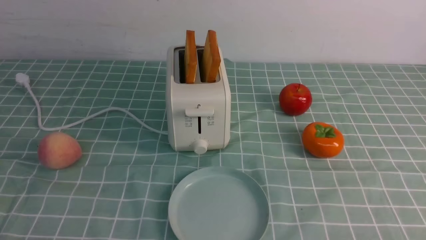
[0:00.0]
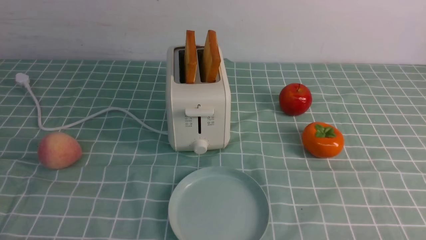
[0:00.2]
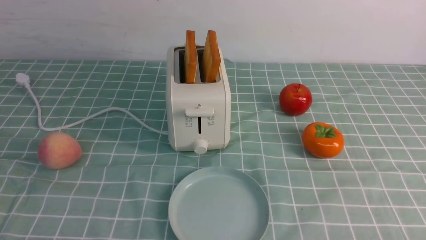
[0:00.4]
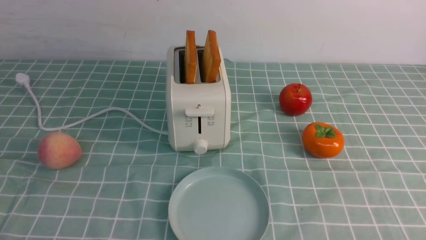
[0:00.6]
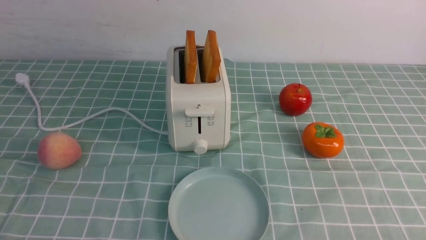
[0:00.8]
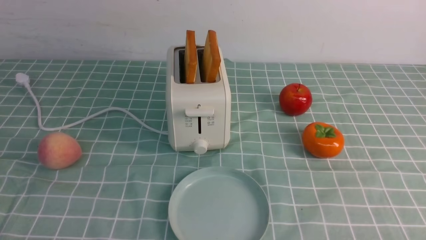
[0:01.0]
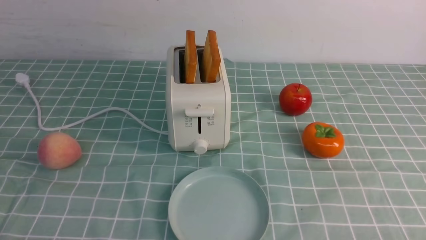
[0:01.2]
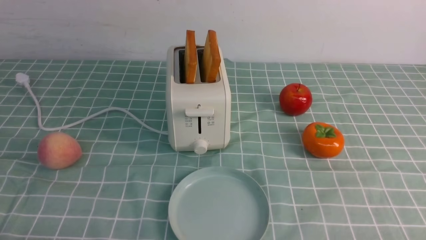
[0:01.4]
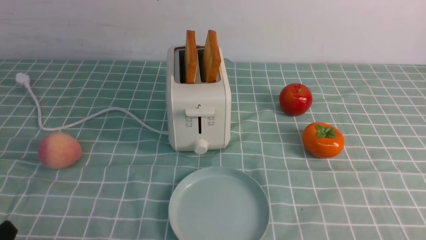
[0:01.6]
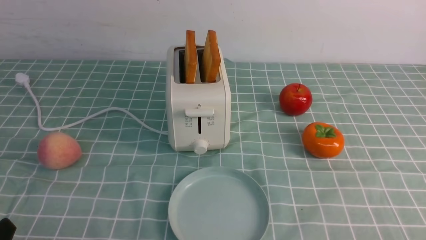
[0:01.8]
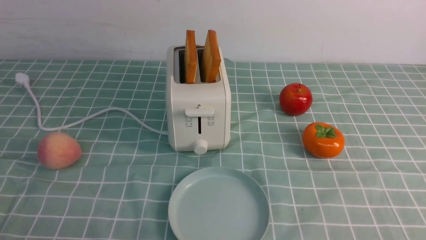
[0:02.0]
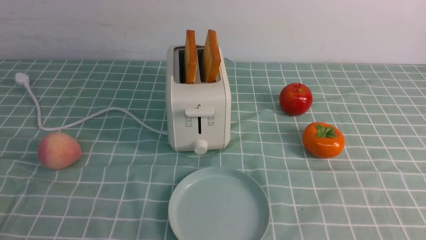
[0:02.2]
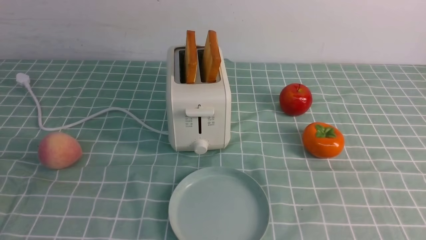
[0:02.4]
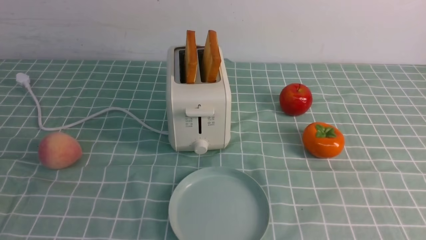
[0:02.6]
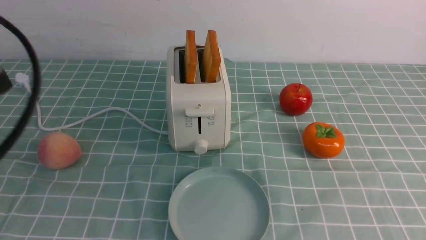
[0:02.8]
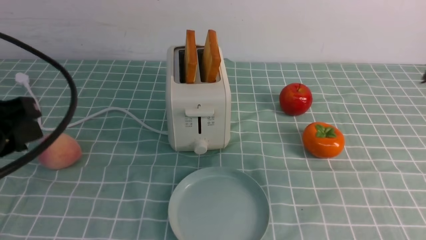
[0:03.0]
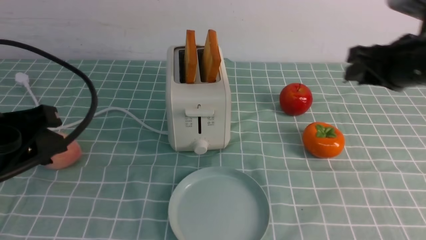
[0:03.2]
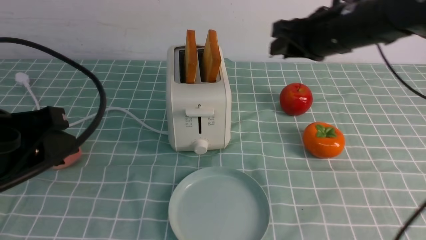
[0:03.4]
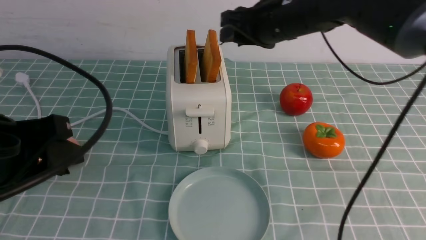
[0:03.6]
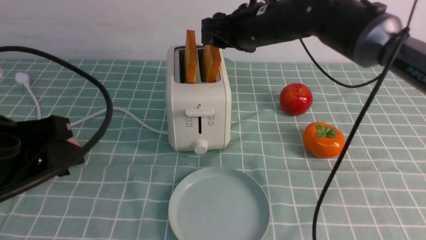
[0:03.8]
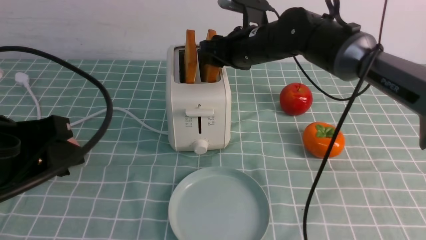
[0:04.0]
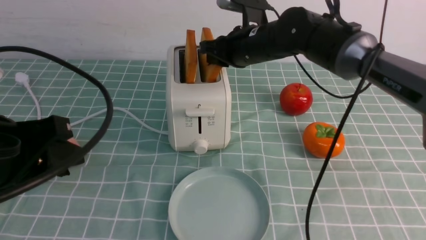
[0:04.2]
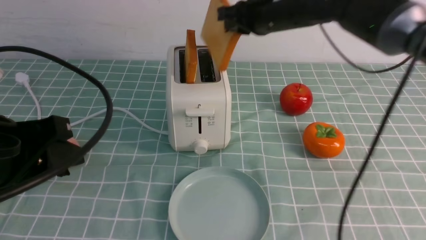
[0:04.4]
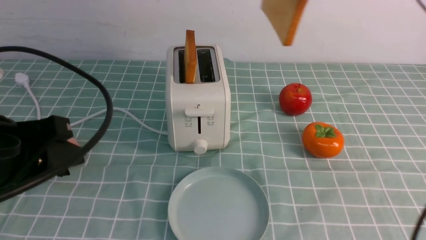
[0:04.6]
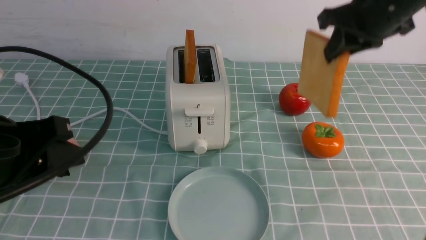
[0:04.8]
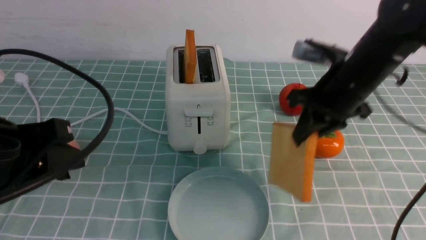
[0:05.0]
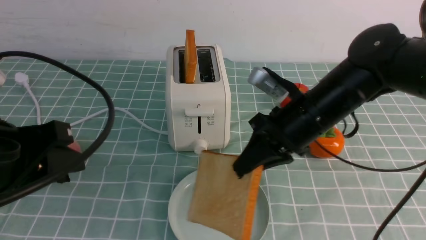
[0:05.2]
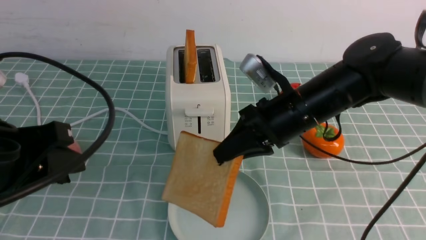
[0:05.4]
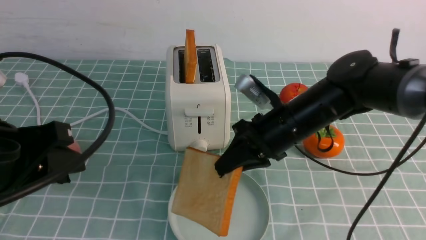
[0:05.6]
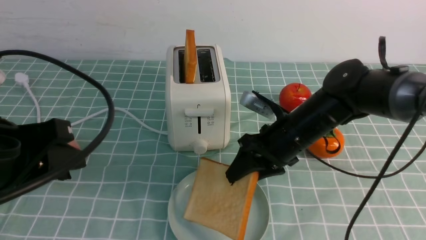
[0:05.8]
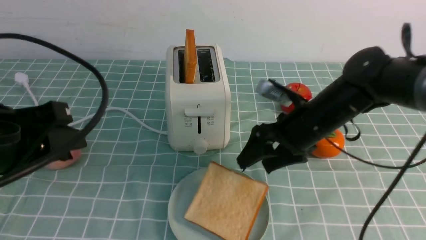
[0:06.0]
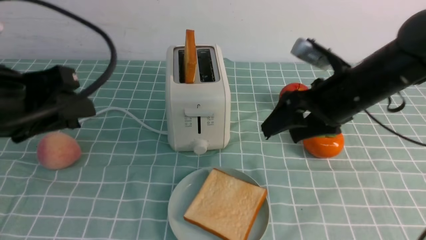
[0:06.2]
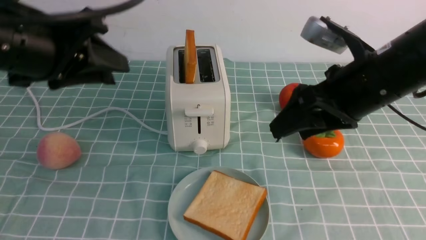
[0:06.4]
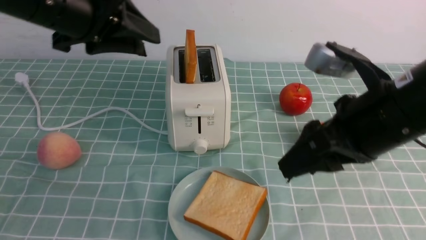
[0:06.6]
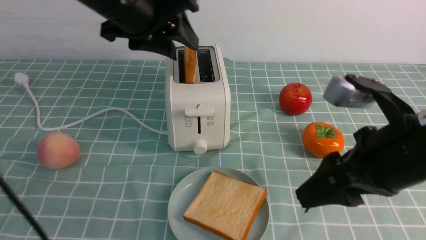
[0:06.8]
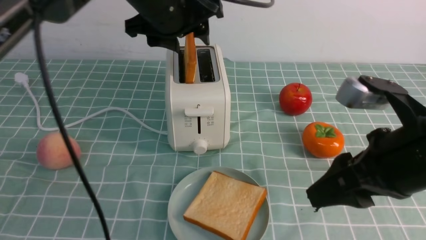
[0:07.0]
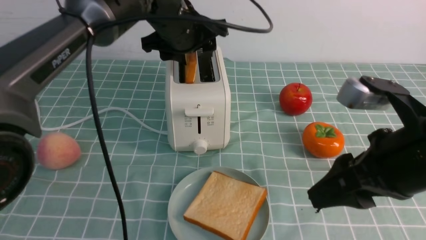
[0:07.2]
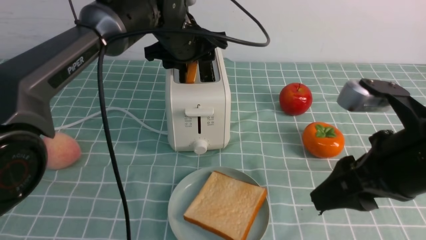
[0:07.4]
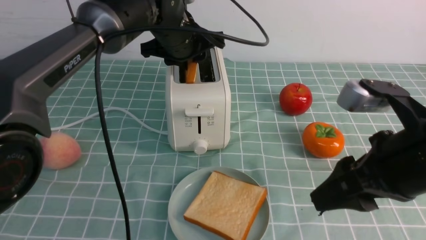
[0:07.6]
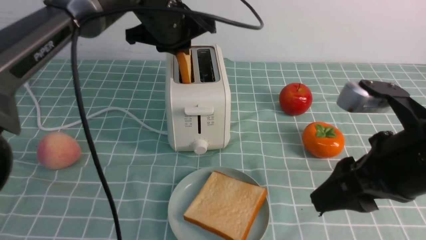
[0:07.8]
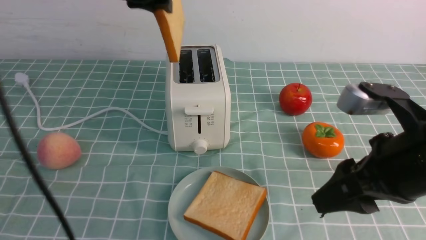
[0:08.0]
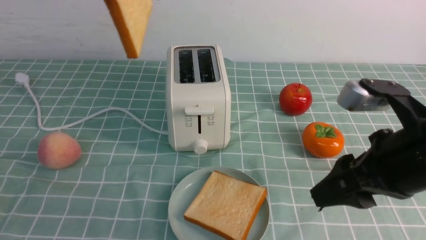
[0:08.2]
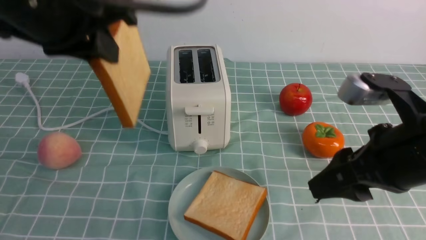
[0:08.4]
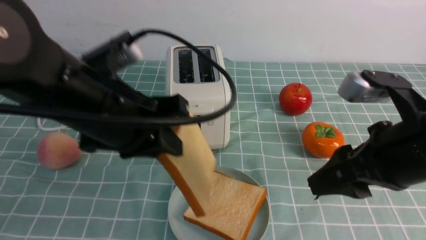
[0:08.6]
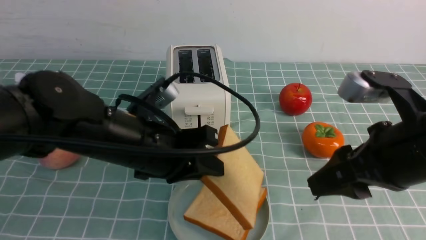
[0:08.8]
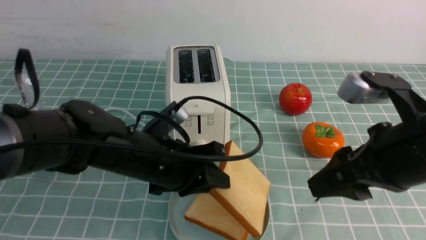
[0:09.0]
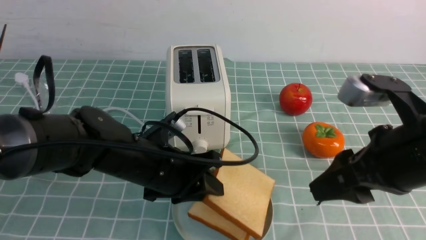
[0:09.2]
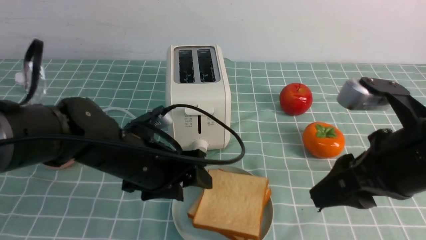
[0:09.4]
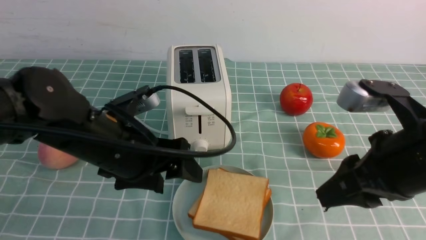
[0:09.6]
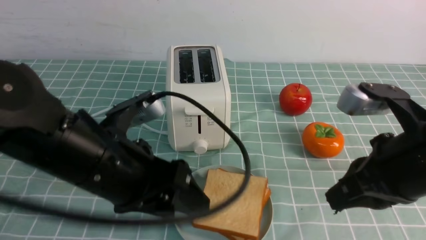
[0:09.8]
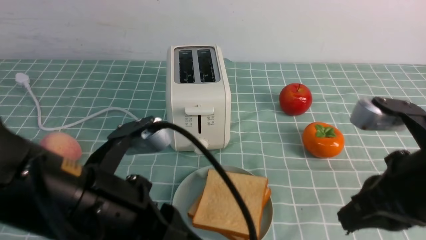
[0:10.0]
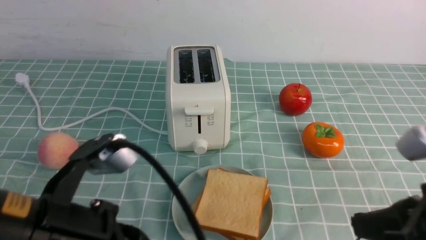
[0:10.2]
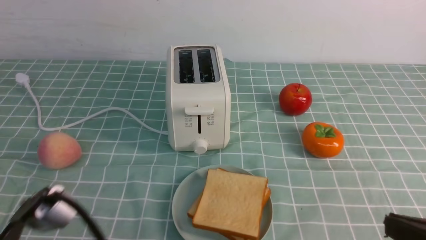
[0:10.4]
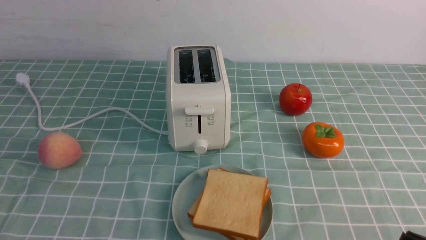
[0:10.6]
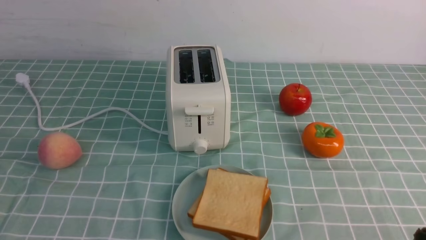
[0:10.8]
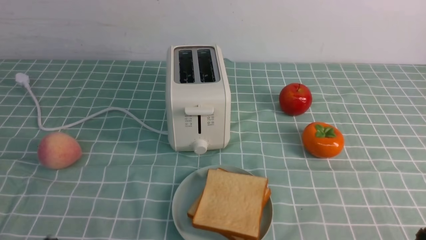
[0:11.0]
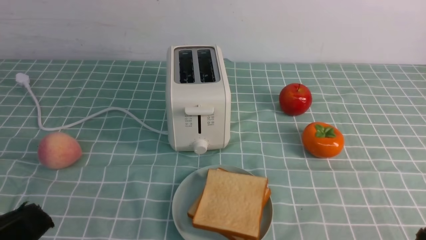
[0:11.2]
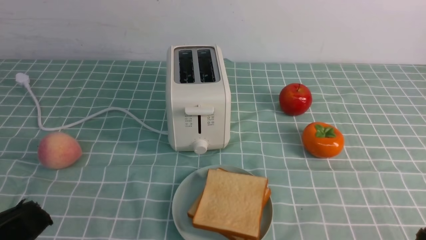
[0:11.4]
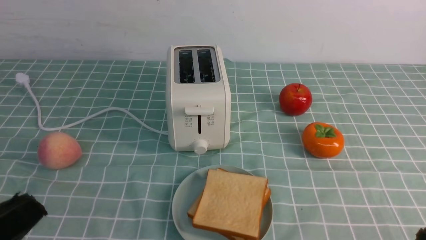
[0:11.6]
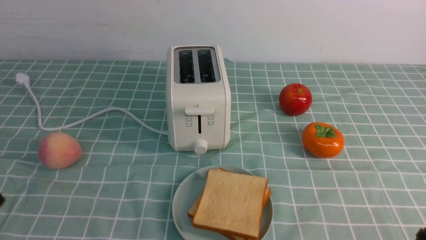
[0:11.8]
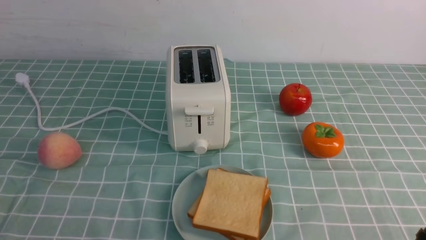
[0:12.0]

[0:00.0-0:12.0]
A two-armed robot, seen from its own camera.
Task of the whole recording: take toasted bread from bread machine on blue coffee table place on plate.
Step, 0:00.0 to 0:04.4: use the right arm to take out a slice of bread.
Step, 0:04.6 to 0:06.0: use the right arm to put a slice of bread into the plate.
Step, 0:06.2 to 0:08.0: use the left arm to take out a slice of bread.
Step, 0:08.2 to 0:09.4: use the left arm to put a slice of bread into the empty plate.
0:01.6 to 0:03.0: The right gripper travels forward and upward by about 30 cm. Meanwhile the left gripper goes some 20 cm upward and forward.
0:03.0 to 0:04.4: The right gripper heads forward and to the left, covering roughly 25 cm.
0:04.4 to 0:06.0: The right gripper goes approximately 15 cm downward and backward, and opens up.
0:06.0 to 0:07.6: The left gripper heads forward and to the right, covering some 30 cm, and opens, then closes again. The right gripper moves backward and upward, roughly 15 cm.
0:07.6 to 0:09.0: The left gripper heads backward and downward, covering some 20 cm.
0:09.0 to 0:10.4: The left gripper goes some 20 cm backward, and opens, then closes once more. Meanwhile the right gripper is displaced backward, to the right and downward by approximately 15 cm, and closes its fingers.
0:10.4 to 0:12.0: The left gripper heads to the left, covering approximately 10 cm, while the right gripper changes place by approximately 5 cm.
